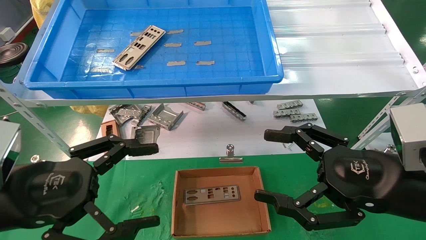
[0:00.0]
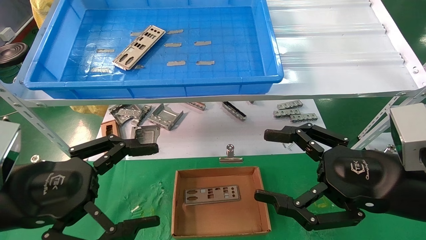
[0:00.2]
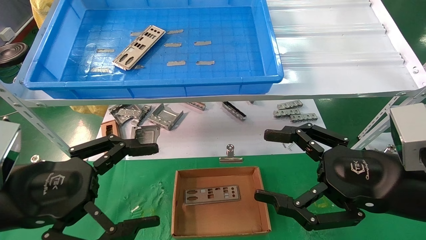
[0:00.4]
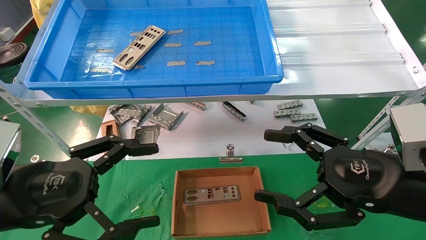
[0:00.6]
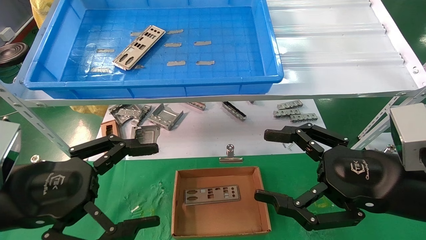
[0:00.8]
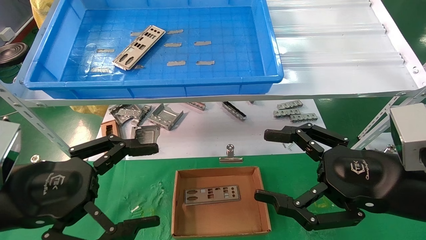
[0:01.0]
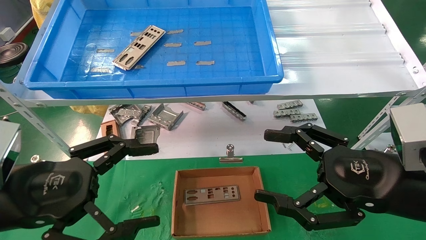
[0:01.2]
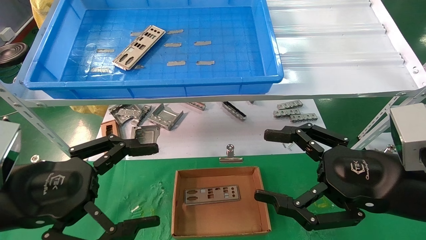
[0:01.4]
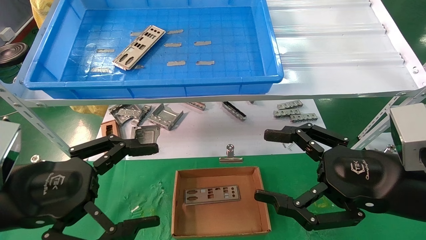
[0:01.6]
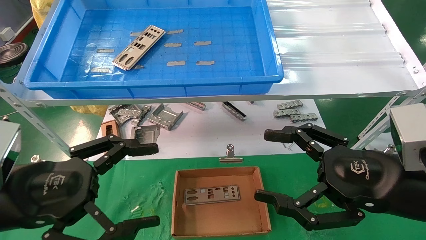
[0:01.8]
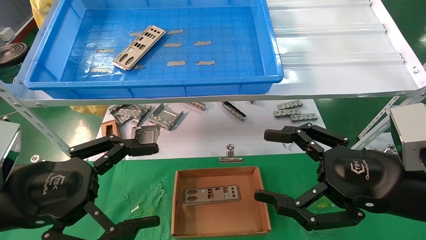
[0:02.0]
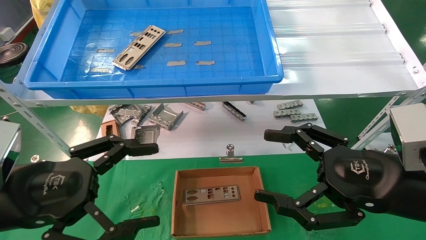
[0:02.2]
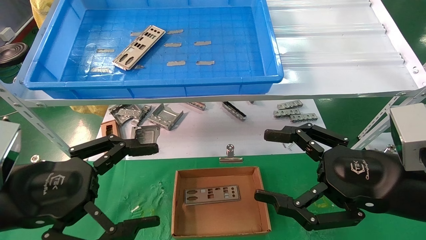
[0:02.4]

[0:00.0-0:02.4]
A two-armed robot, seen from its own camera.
Task of the whole recording: pick up the parts on the tray and put them in the cardboard box.
0:00.0 to 0:02.4: Both grippers stay put.
